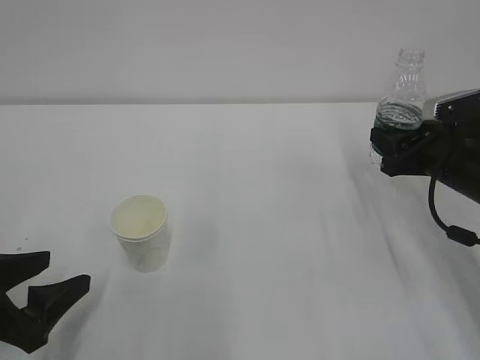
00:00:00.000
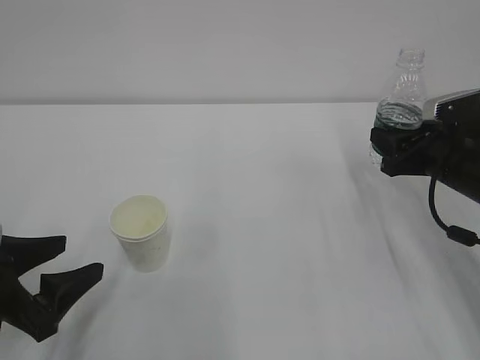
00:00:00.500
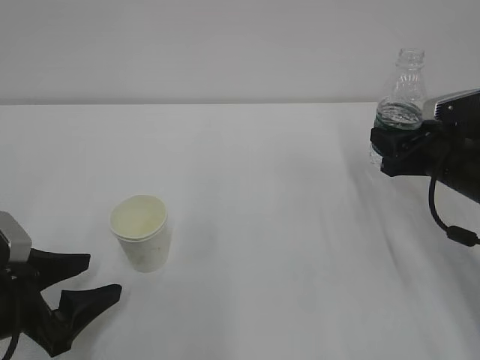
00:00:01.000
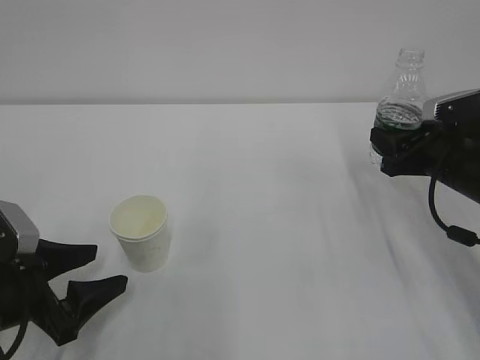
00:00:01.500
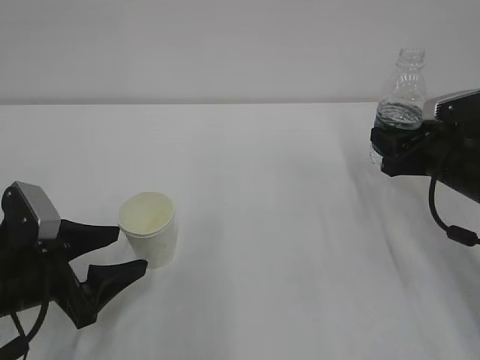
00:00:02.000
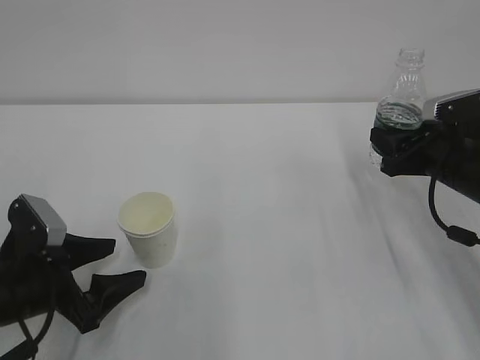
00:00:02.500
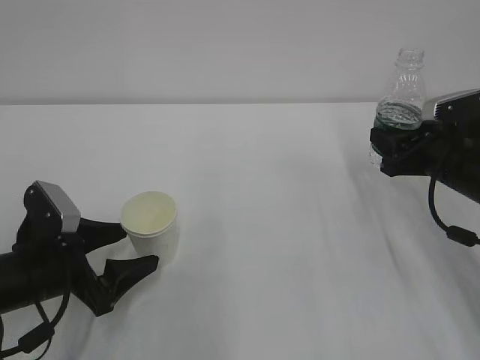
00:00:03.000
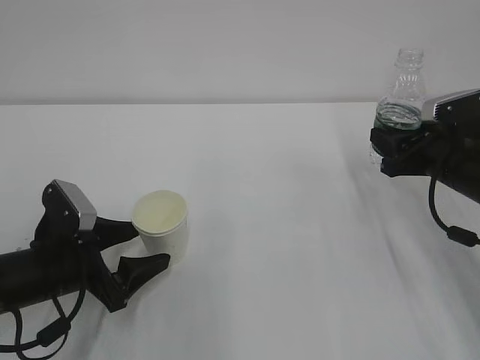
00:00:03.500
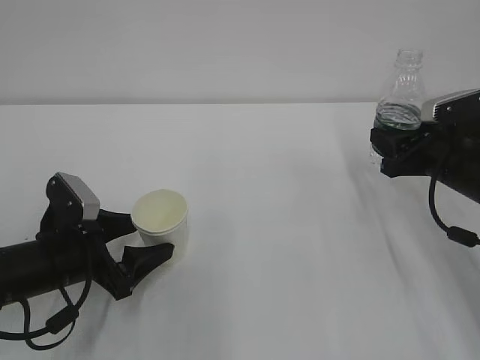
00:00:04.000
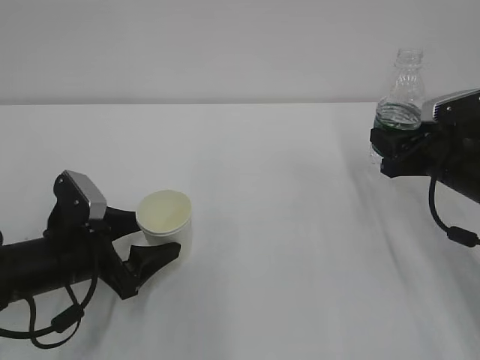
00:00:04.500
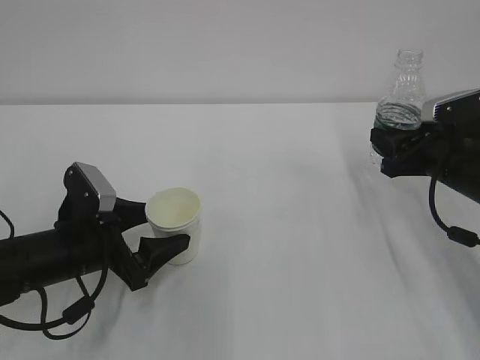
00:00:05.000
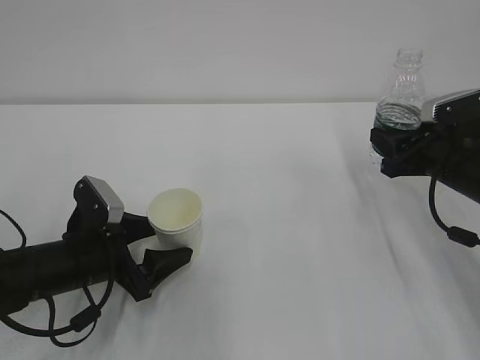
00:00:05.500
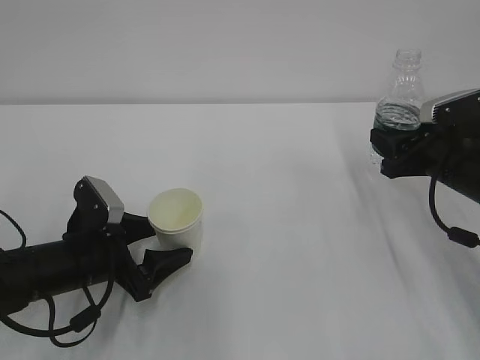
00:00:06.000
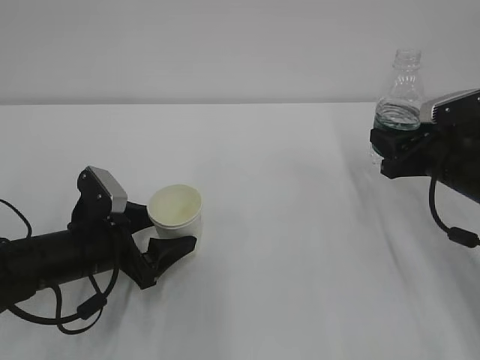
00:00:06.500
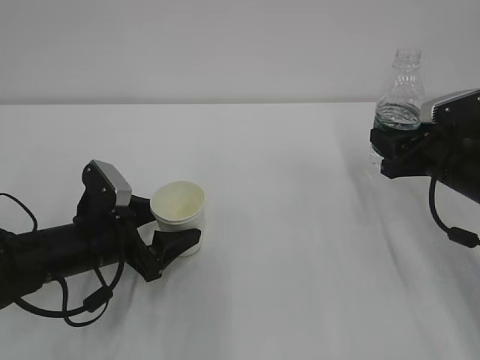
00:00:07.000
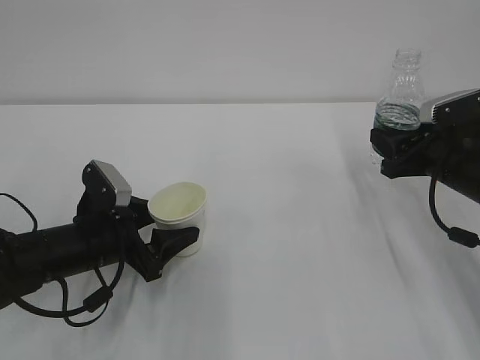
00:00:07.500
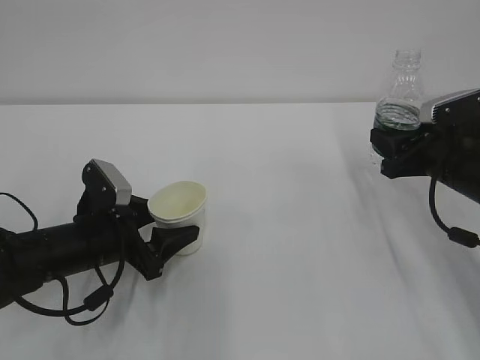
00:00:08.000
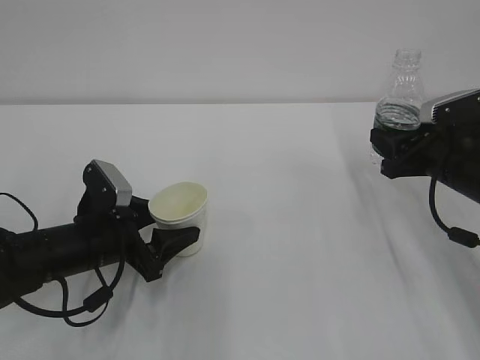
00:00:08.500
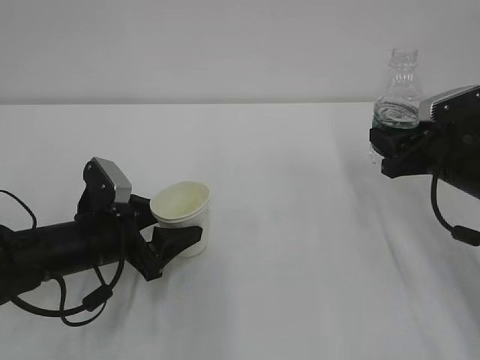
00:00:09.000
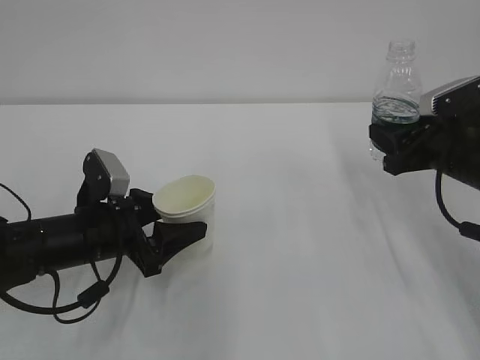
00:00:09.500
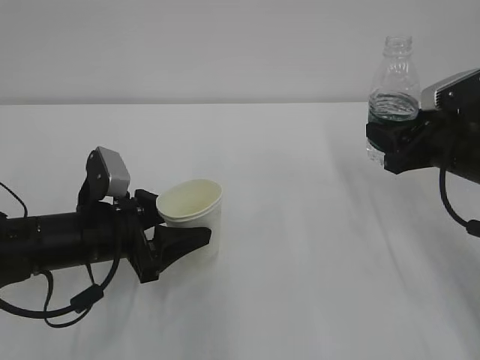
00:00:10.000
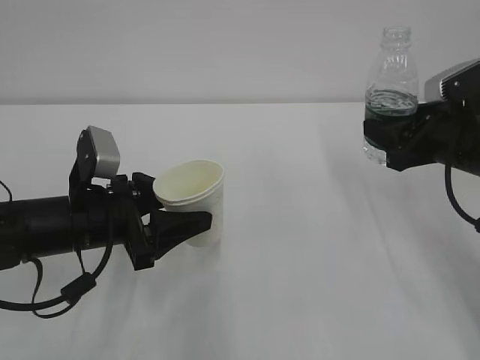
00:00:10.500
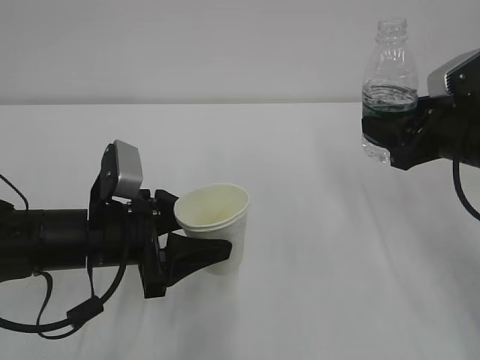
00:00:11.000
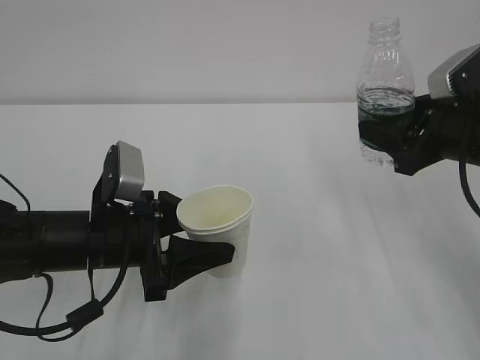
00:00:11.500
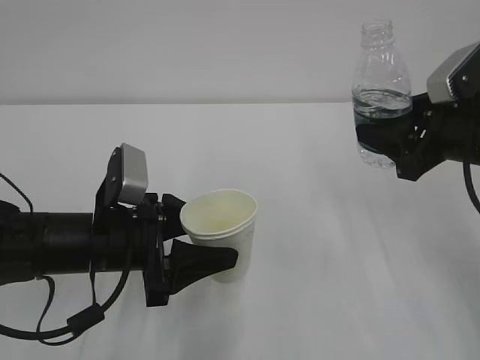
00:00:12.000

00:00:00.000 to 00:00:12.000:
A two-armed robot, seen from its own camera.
Step, 00:00:00.000 to 00:00:08.000: Grasp the cup with left gripper.
00:00:00.000 to 00:00:02.000: The left gripper ends up approximately 5 cm from where it was.
00:00:02.000 to 00:00:04.000: The left gripper changes place by about 5 cm.
00:00:04.000 to 00:00:06.000: The grippers stay close to where they were, moving slightly.
00:00:06.000 to 00:00:08.000: The left gripper closes its fingers.
00:00:08.000 to 00:00:10.000: The grippers make only small movements.
00:00:10.000 to 00:00:12.000: The right gripper moves approximately 5 cm.

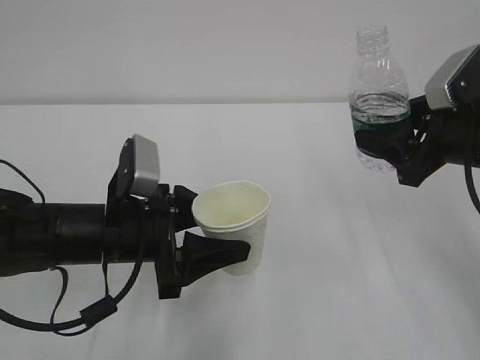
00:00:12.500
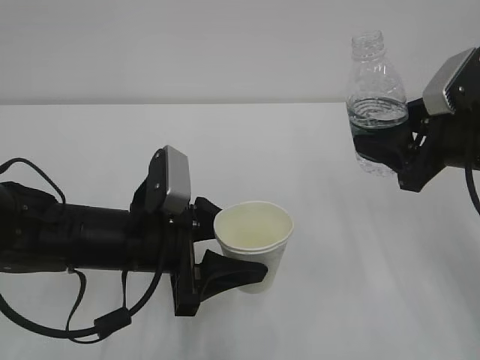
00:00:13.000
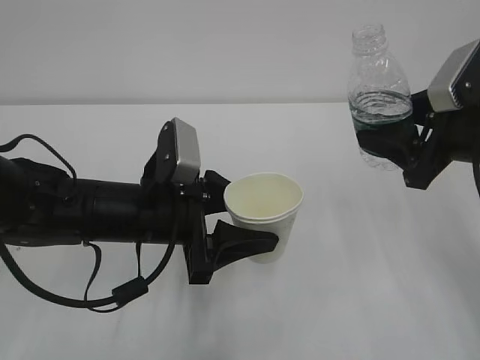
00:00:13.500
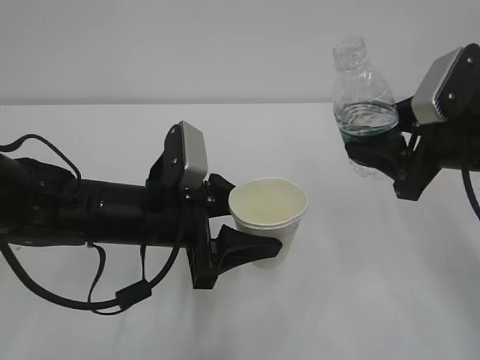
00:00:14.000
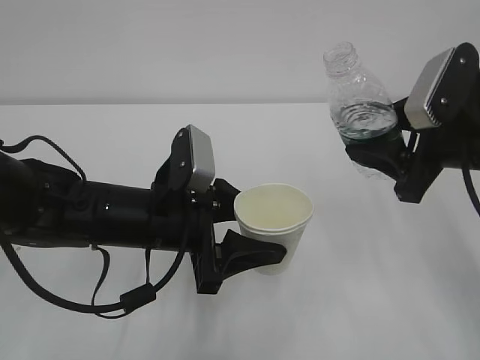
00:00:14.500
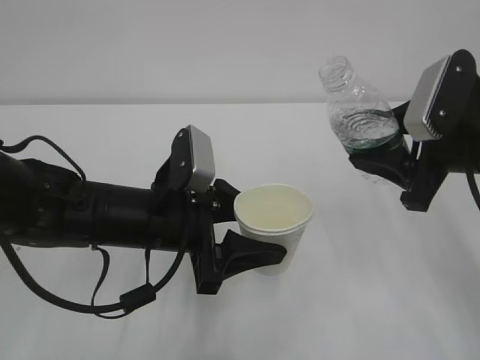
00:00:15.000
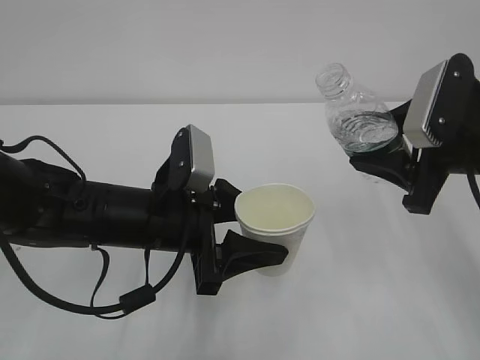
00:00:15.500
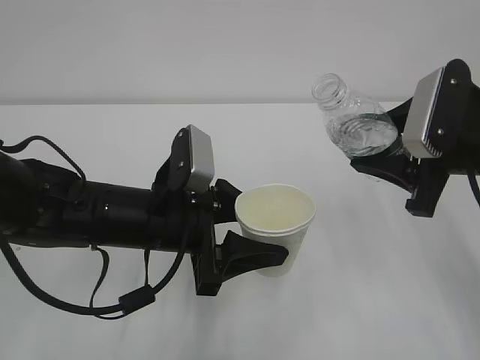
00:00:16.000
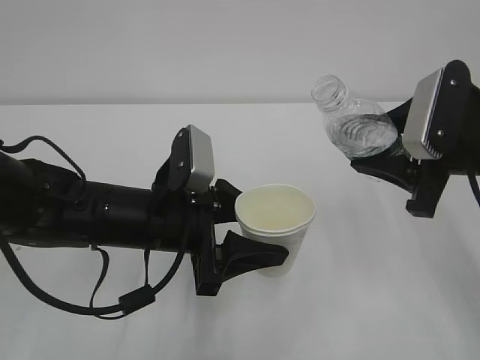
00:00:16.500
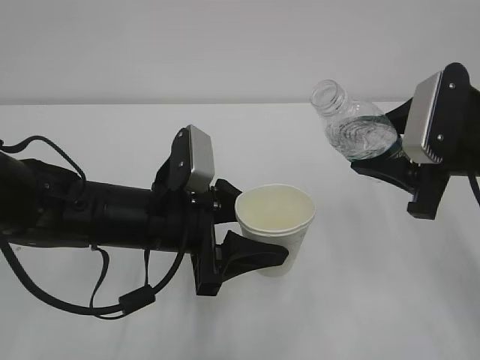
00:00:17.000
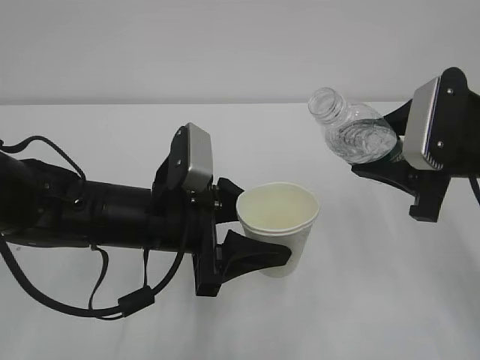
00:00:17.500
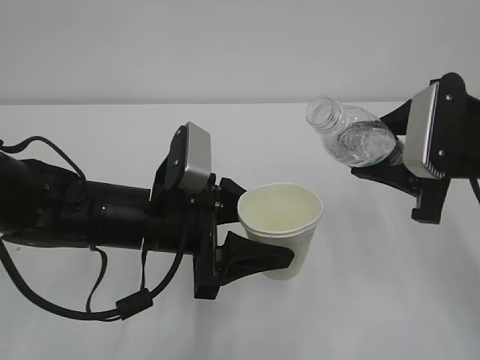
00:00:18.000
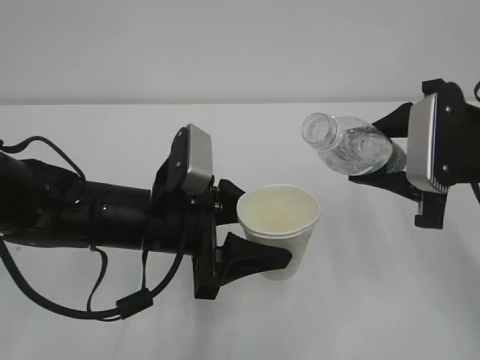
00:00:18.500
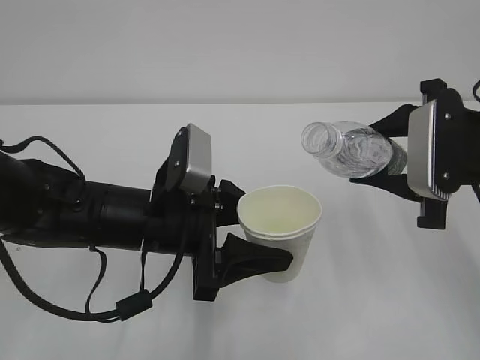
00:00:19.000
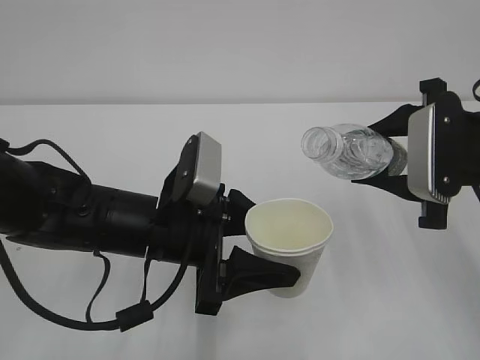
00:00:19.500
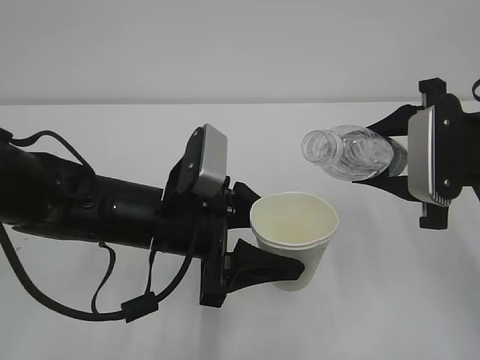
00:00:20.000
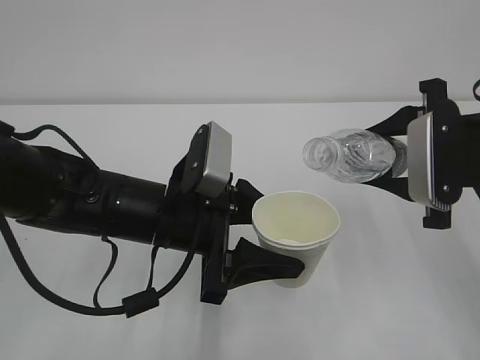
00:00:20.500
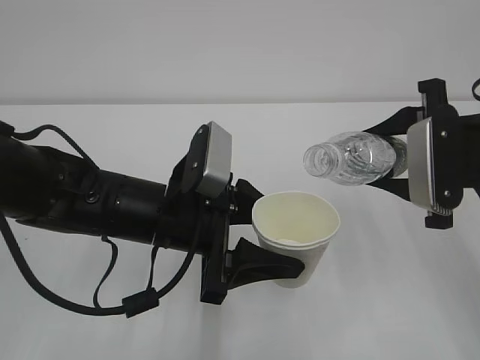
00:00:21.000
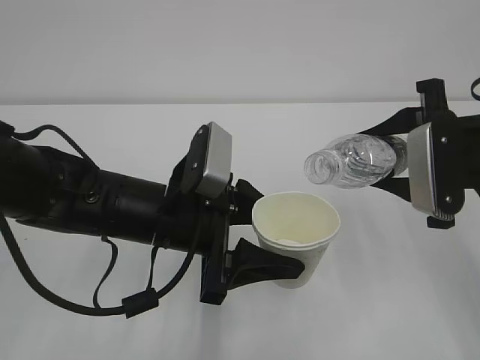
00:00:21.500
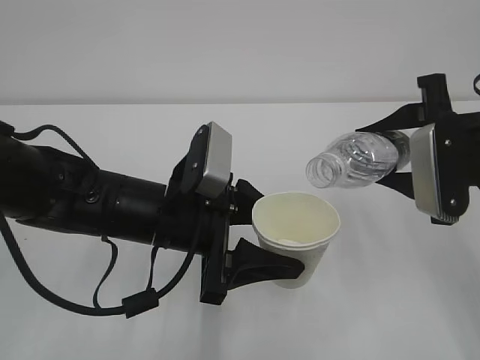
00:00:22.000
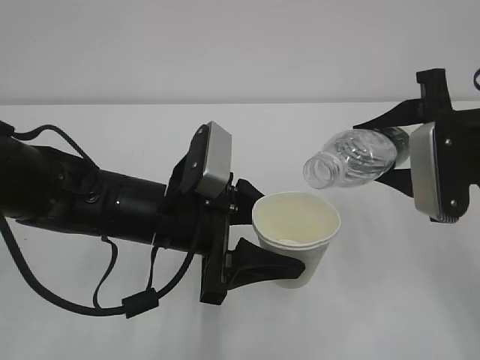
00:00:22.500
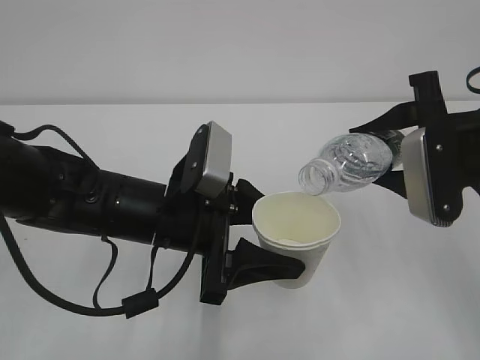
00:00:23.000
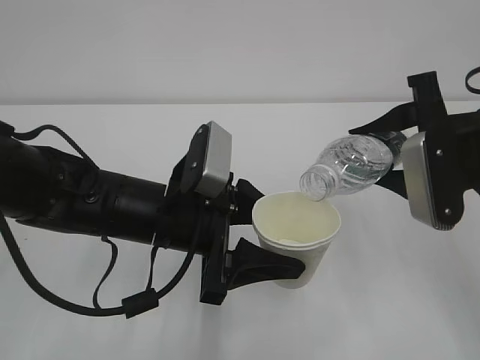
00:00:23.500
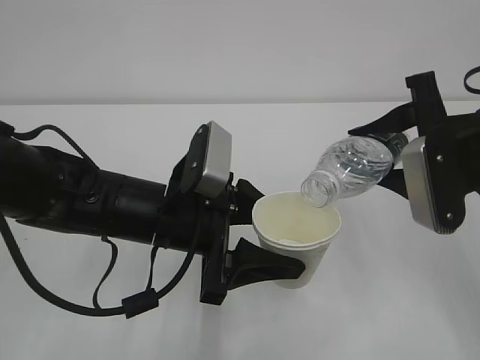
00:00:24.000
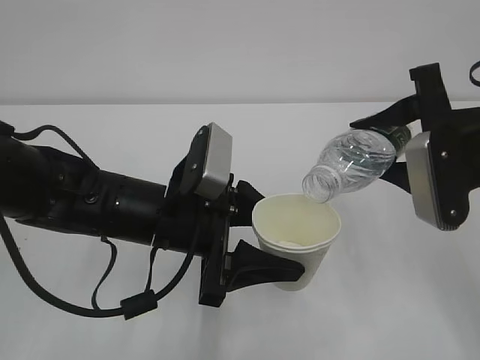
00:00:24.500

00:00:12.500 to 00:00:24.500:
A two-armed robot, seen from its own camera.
Step, 00:00:12.500 to 00:00:16.000: Lift the cup with left gripper.
00:00:12.500 to 00:00:14.500: The grippers make only small movements.
00:00:14.500 to 00:00:16.500: There are only small adjustments of the grippers.
00:00:16.500 to 00:00:18.500: The grippers stay close to where they were, moving slightly.
00:00:18.500 to 00:00:20.500: The grippers move only a little.
00:00:20.500 to 00:00:22.500: The grippers make only small movements.
00:00:22.500 to 00:00:24.500: The grippers make only small movements.

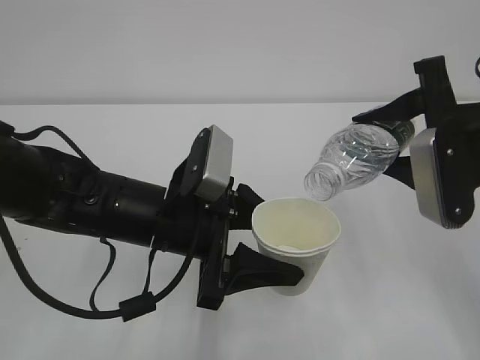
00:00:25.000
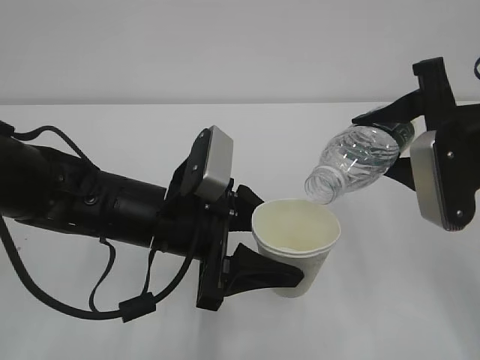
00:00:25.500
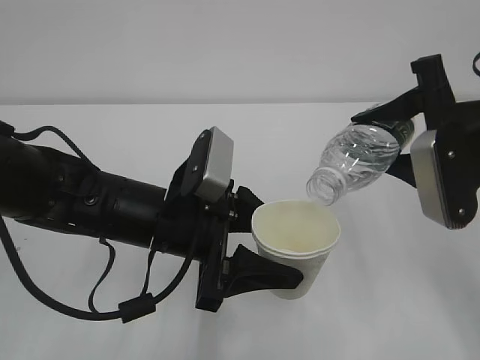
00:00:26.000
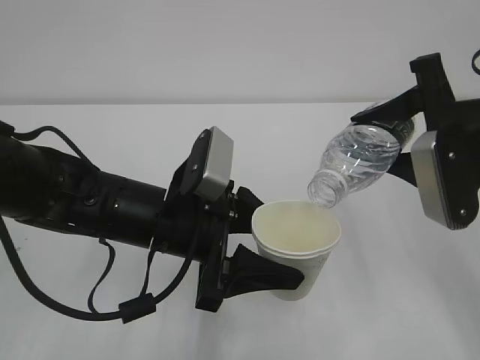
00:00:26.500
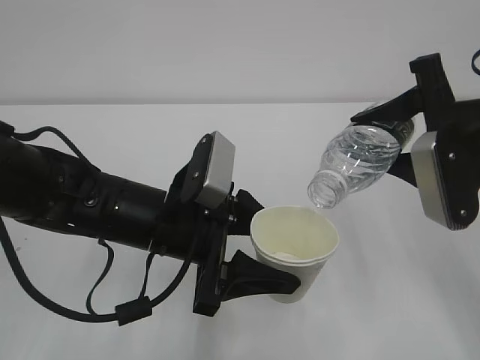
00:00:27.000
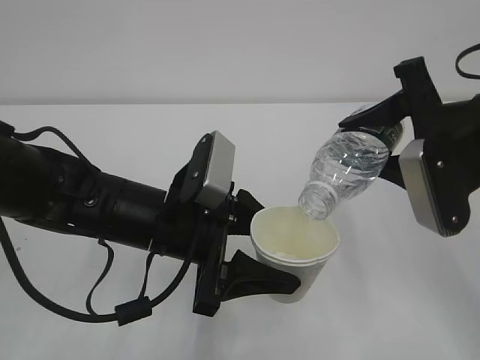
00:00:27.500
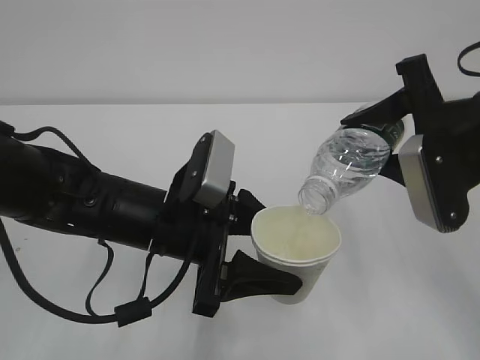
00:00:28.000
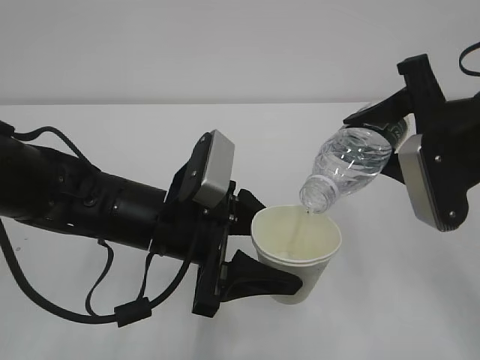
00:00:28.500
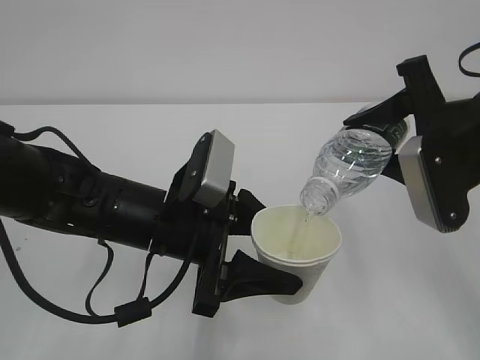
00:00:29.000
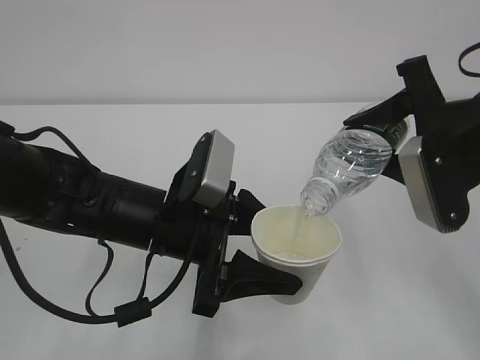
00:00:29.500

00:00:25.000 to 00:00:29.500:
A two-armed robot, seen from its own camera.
00:00:25.000 to 00:00:27.000: Neither gripper changes place.
00:00:27.000 to 00:00:29.500: The two grippers keep their place.
